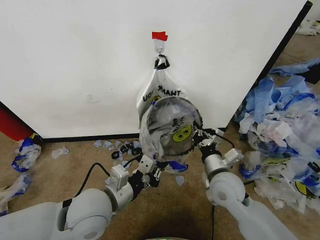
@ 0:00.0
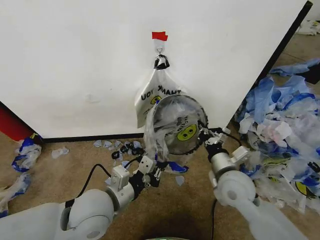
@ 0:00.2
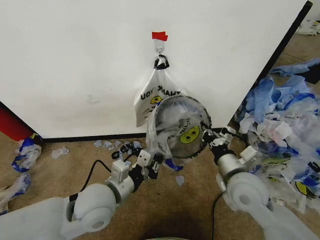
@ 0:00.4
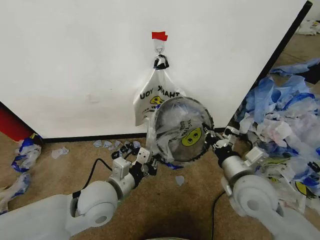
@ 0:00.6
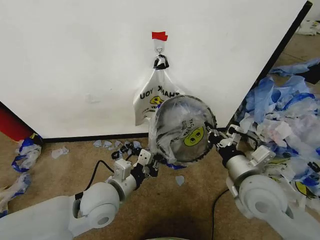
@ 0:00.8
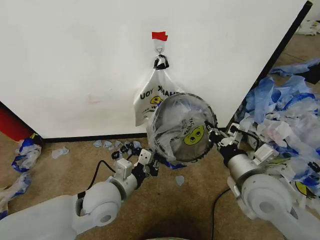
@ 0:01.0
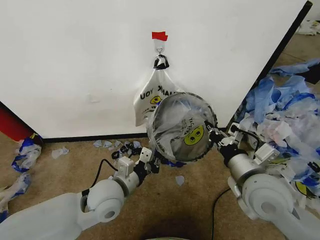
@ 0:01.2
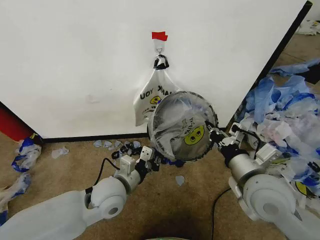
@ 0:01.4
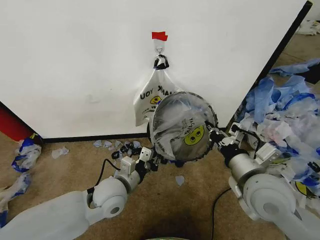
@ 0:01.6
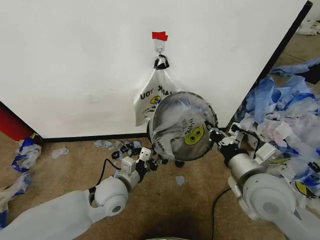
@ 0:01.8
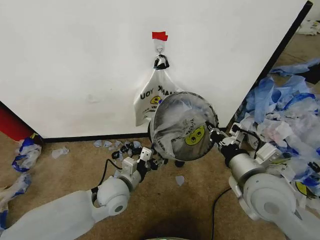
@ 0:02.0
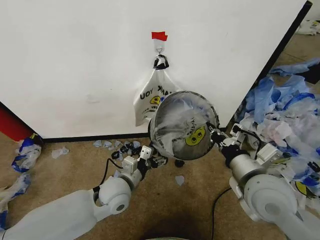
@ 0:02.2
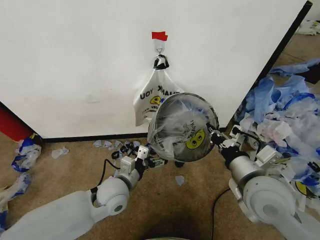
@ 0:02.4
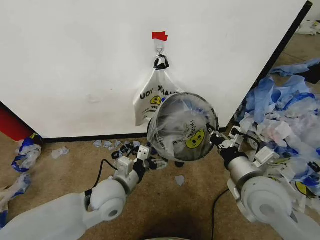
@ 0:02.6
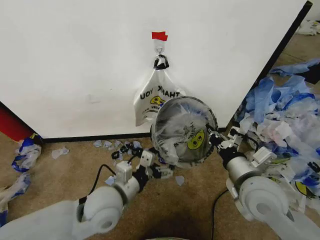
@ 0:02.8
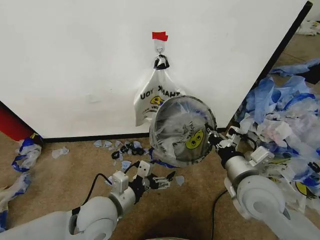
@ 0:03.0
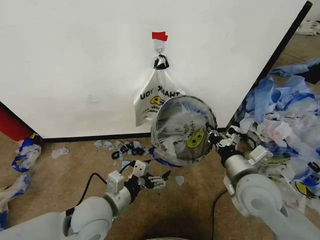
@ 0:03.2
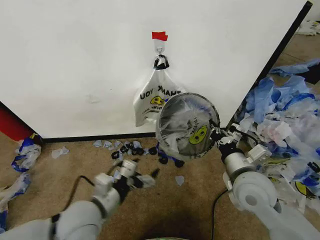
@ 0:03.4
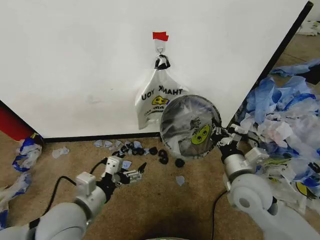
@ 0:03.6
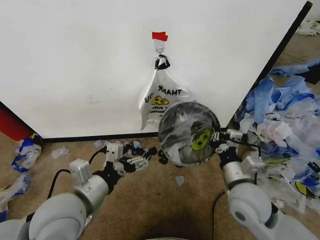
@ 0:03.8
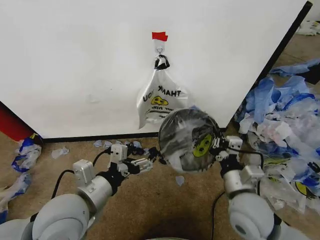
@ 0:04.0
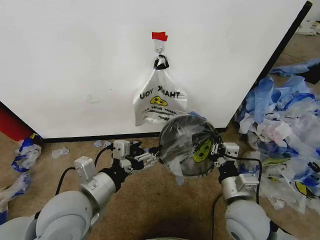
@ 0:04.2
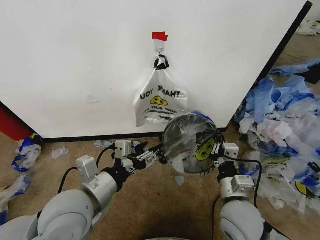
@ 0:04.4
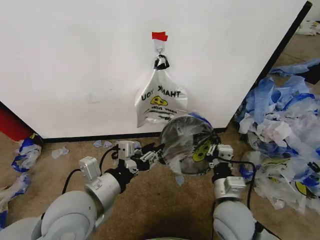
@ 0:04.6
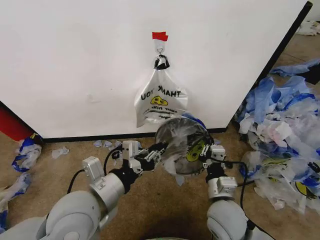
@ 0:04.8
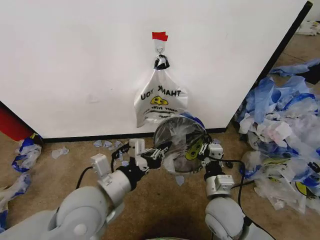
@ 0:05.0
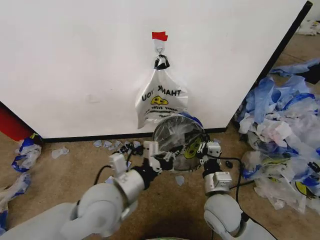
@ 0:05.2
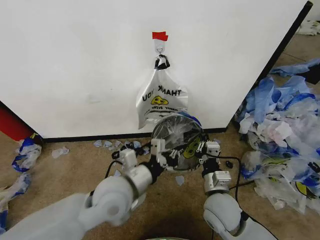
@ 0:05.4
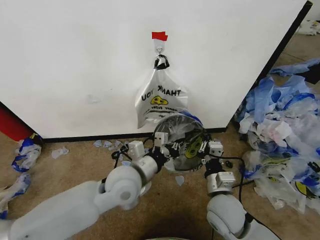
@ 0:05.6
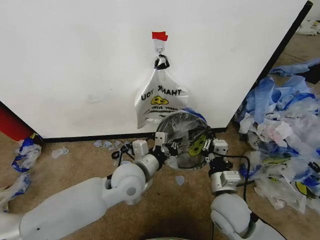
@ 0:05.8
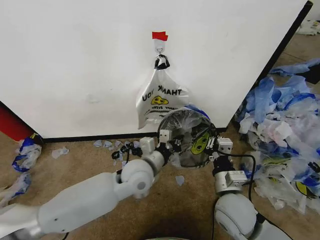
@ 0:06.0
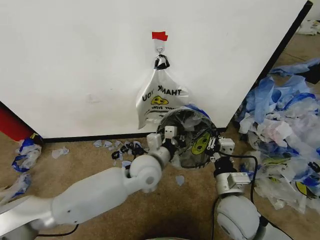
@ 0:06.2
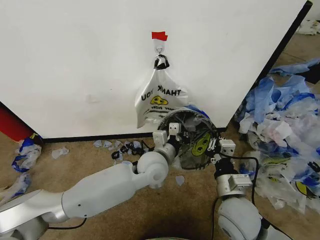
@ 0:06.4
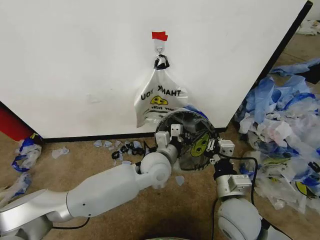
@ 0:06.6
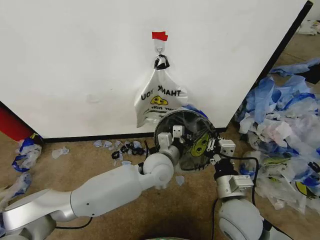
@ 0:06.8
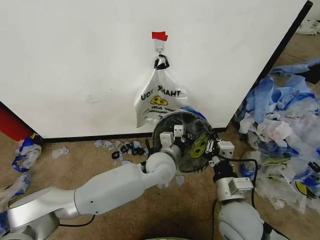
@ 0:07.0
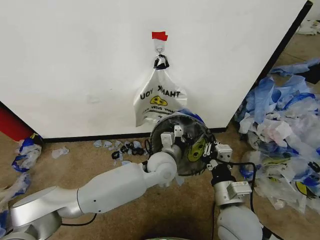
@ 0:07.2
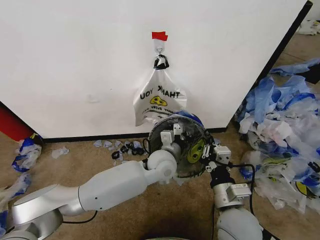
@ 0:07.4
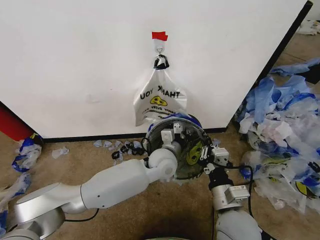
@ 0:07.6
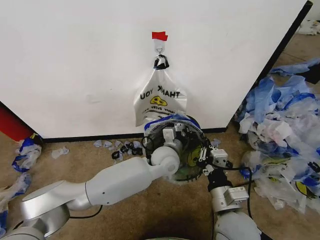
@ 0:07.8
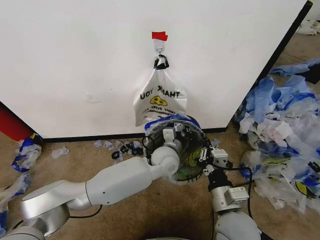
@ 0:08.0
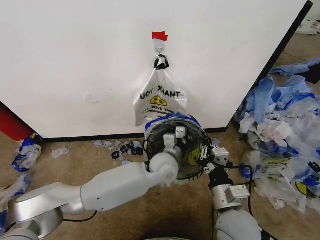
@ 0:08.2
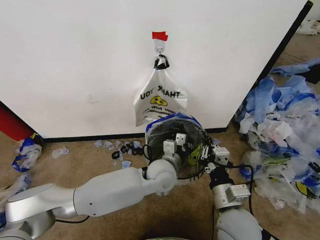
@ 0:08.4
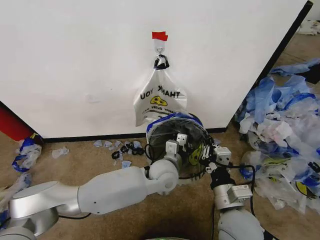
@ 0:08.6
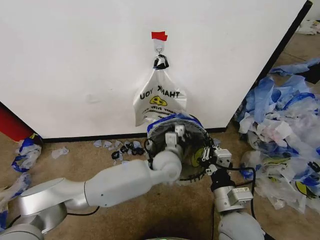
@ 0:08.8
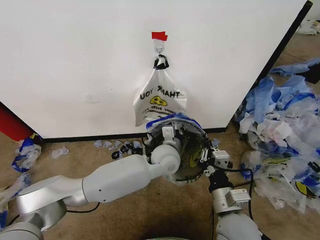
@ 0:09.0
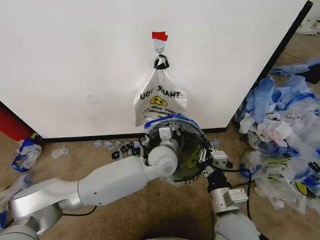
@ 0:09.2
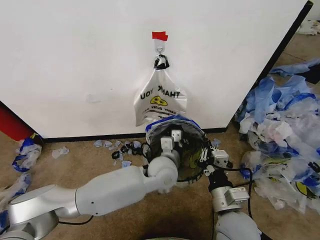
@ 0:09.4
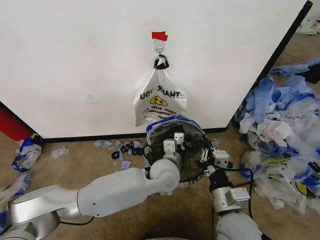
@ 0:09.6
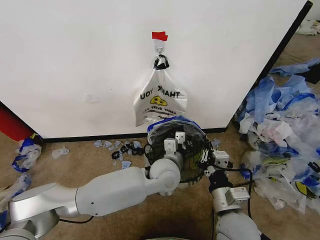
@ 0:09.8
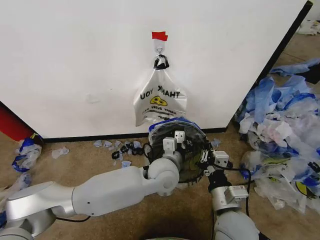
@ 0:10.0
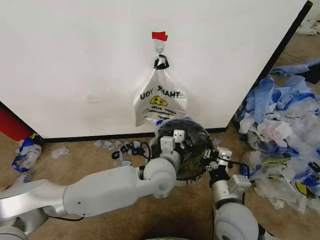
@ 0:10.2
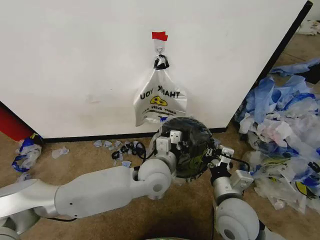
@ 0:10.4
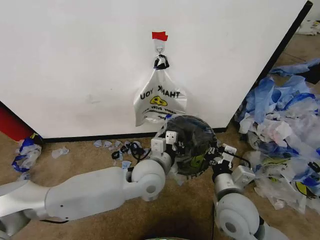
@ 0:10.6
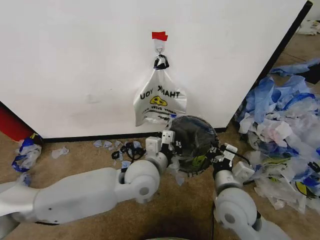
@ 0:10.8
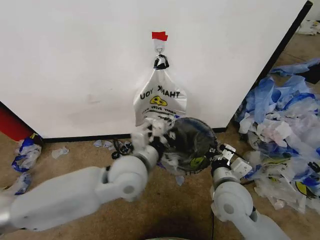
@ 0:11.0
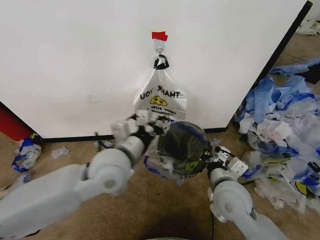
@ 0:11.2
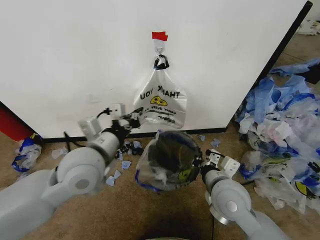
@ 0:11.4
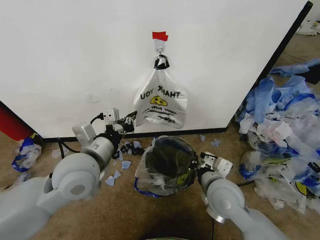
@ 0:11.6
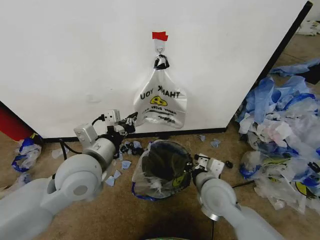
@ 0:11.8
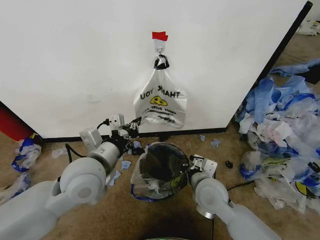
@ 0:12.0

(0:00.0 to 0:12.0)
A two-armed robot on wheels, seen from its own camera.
Task of the whole recording: Pick up the garbage bag from the wall and place it over the trash bin.
0:00.0 - 0:01.6: The right gripper goes approximately 10 cm upward and backward; the left gripper shifts some 10 cm downward and forward.
0:01.6 - 0:03.0: The left gripper is displaced backward by approximately 5 cm, and opens.
0:03.0 - 0:04.4: The right gripper travels downward by about 5 cm, while the left gripper goes roughly 10 cm upward.
0:04.4 - 0:06.0: The left gripper shifts some 20 cm forward, to the right and downward, and closes its fingers.
0:06.0 - 0:07.6: The left gripper moves to the right and forward, roughly 10 cm.
0:07.6 - 0:09.0: The grippers make only small movements.
0:09.0 - 0:10.4: The left gripper moves backward, about 5 cm.
0:10.4 - 0:12.0: The left gripper moves to the left and upward, roughly 15 cm. The right gripper moves forward, about 5 cm.

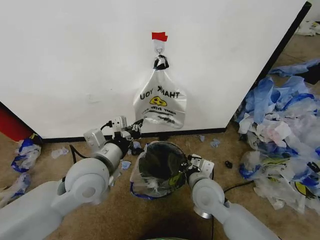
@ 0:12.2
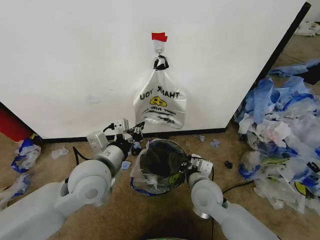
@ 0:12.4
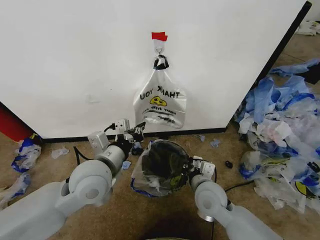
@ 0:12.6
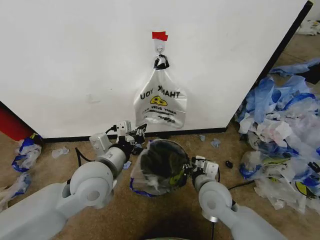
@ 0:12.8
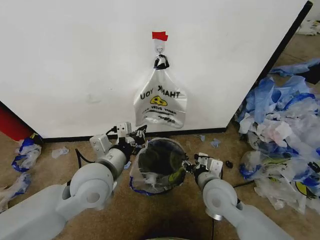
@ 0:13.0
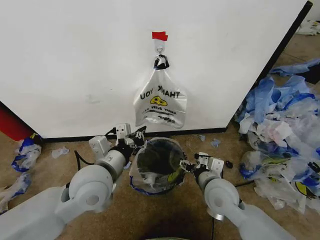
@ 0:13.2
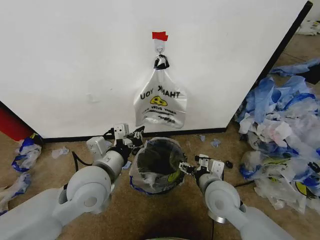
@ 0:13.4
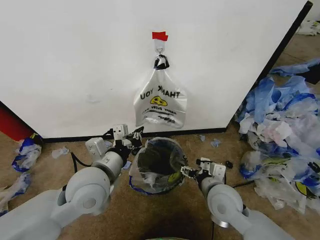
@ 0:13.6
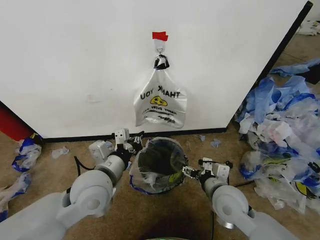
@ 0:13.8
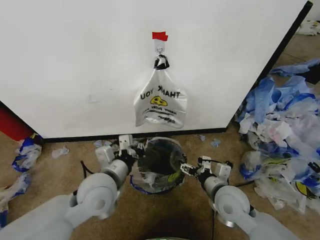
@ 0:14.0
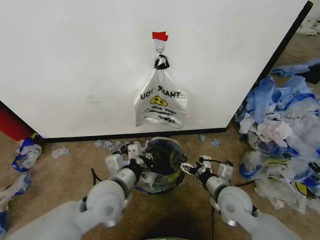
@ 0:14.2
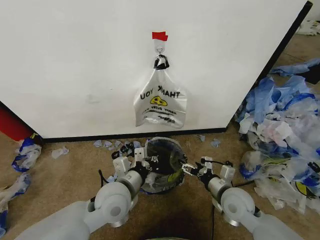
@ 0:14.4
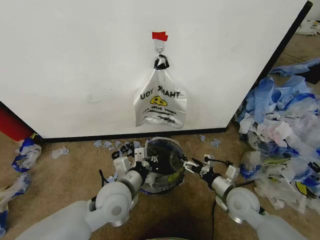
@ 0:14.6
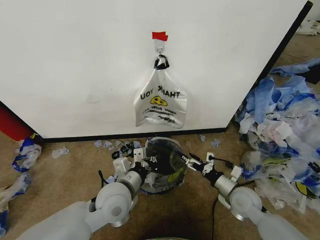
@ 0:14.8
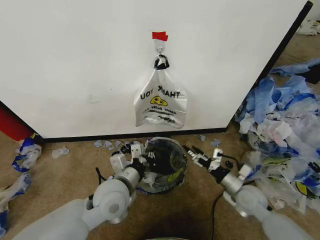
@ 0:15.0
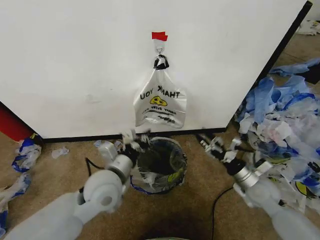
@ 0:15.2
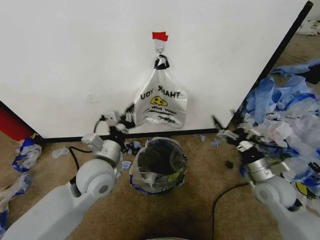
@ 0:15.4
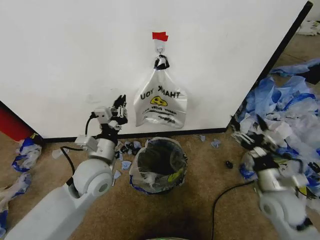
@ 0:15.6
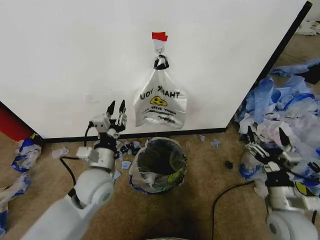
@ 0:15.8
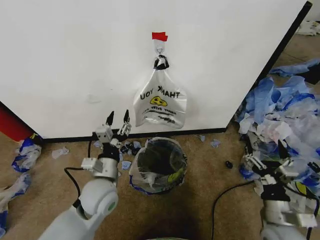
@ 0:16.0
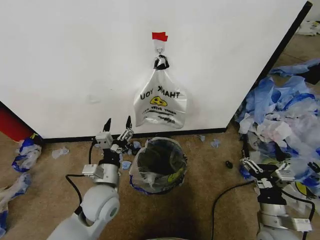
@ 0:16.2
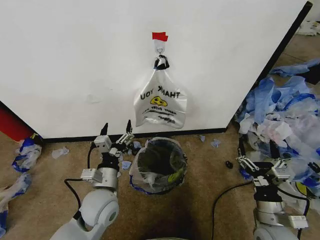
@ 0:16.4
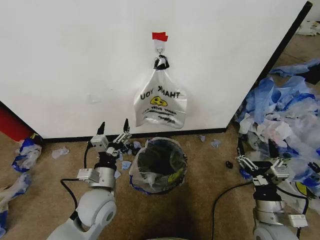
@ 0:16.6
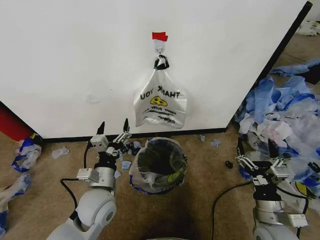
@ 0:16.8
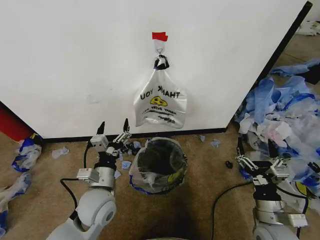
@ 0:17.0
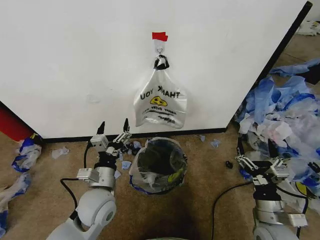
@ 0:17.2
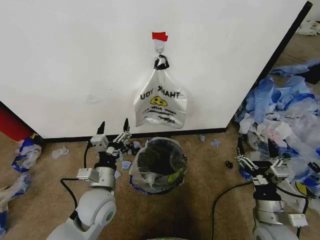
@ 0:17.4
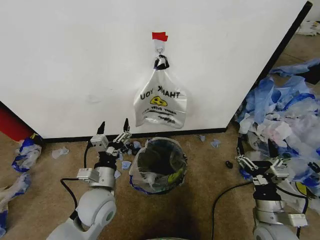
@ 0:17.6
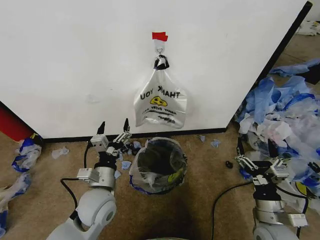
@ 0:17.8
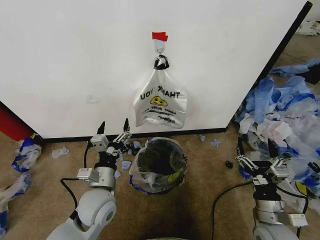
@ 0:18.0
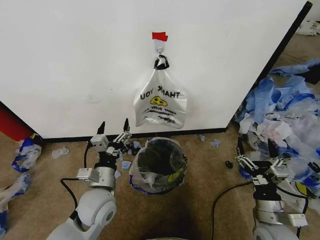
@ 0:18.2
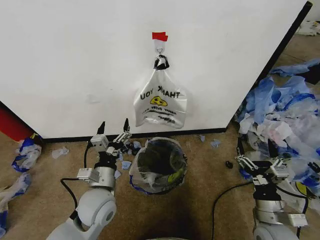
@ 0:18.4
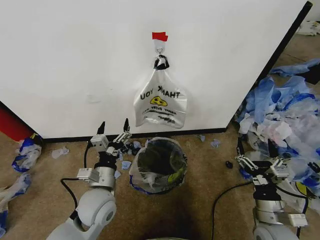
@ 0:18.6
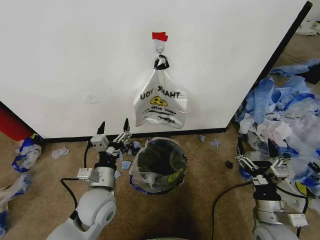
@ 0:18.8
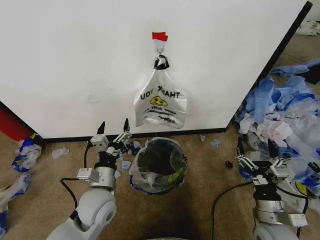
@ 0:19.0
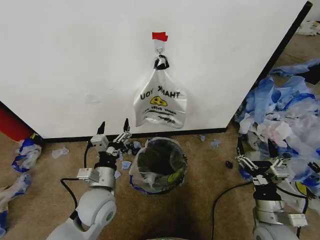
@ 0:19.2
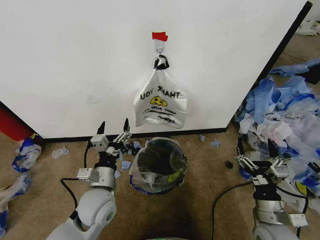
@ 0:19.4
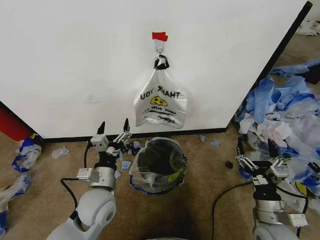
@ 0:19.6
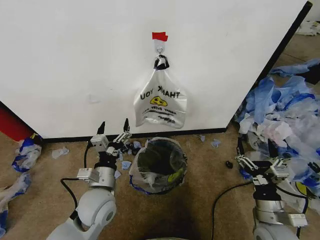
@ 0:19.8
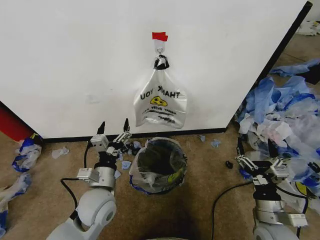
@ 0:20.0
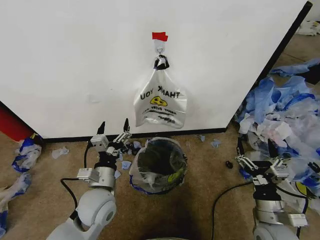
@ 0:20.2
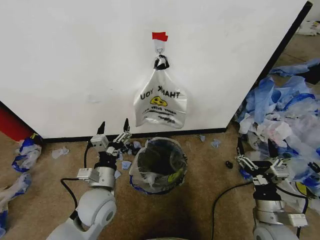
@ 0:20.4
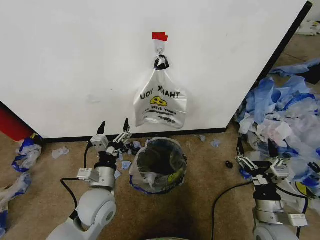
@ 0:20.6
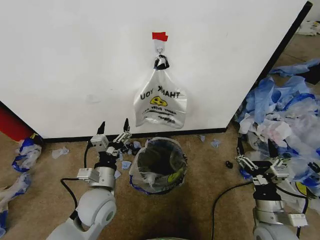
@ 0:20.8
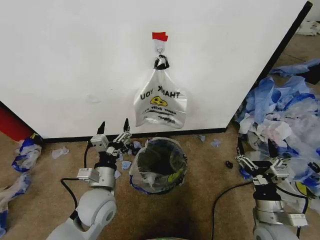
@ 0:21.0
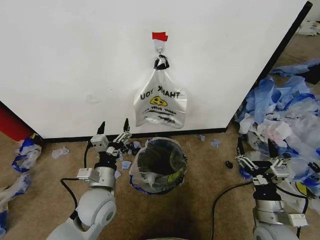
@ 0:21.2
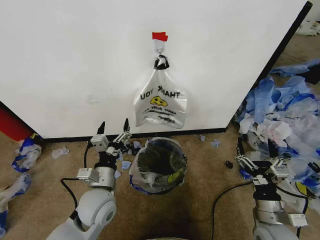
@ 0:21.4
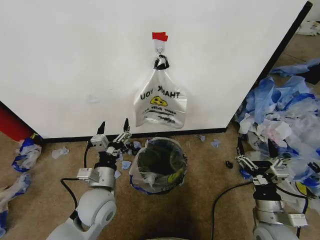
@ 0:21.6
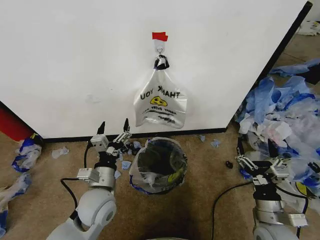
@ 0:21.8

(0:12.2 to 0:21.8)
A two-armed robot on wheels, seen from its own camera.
Task of the whole recording: Pick up the garbage bag from the wall and place it over the trash bin.
0:12.2 - 0:13.8: The right gripper ends up roughly 5 cm from where it was, and opens its fingers.
0:13.8 - 0:15.4: The right gripper shifts about 15 cm to the right.
0:15.4 - 0:17.0: The left gripper goes some 10 cm downward, and opens up. Meanwhile the right gripper goes some 15 cm backward and downward.
0:17.0 - 0:21.8: Both grippers stay about where they are.
